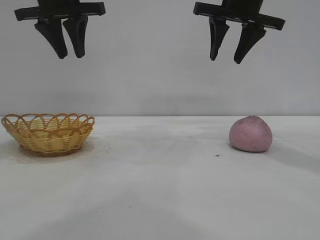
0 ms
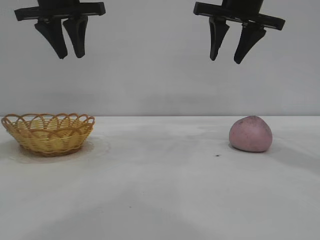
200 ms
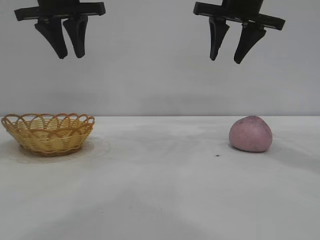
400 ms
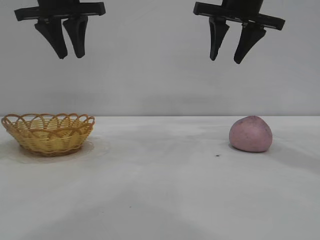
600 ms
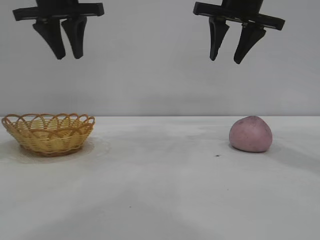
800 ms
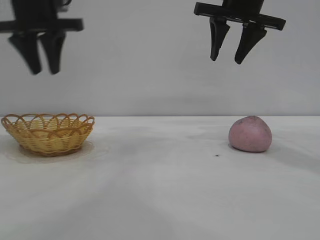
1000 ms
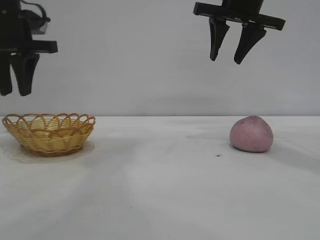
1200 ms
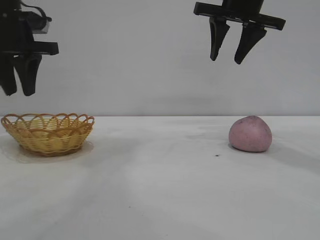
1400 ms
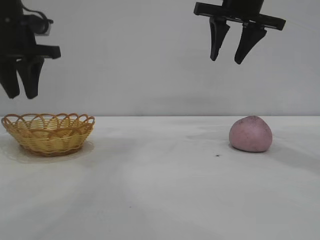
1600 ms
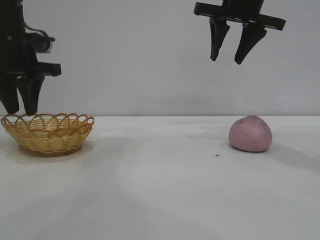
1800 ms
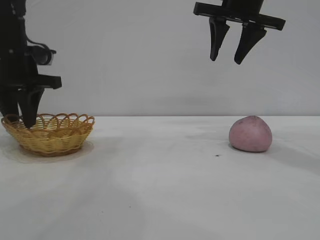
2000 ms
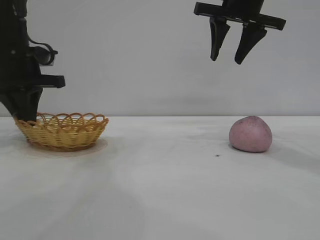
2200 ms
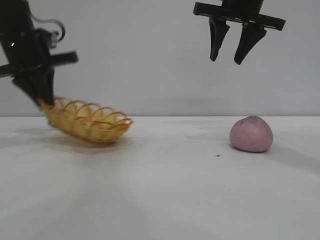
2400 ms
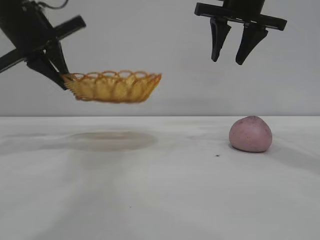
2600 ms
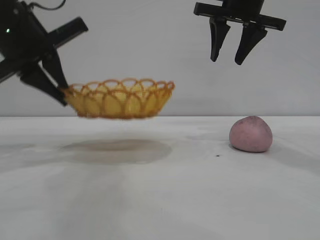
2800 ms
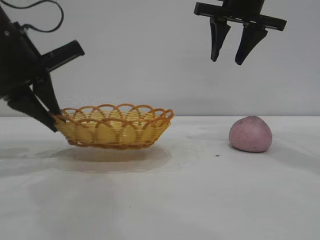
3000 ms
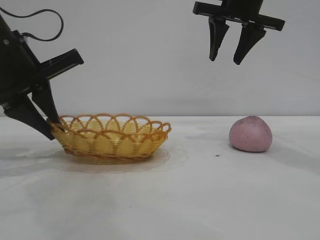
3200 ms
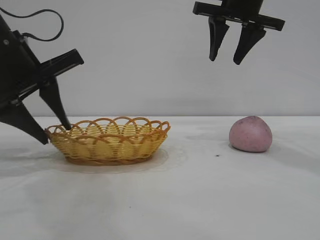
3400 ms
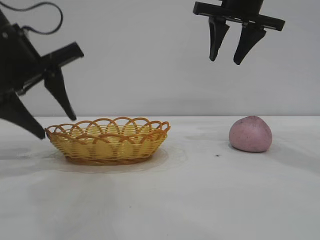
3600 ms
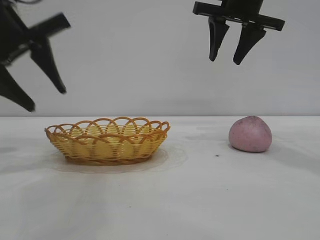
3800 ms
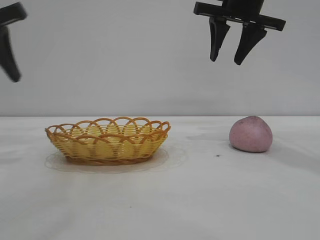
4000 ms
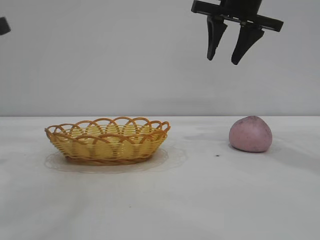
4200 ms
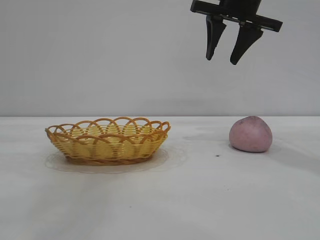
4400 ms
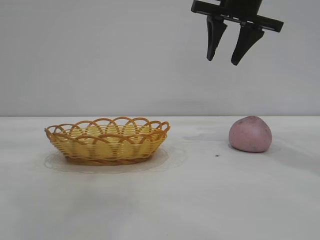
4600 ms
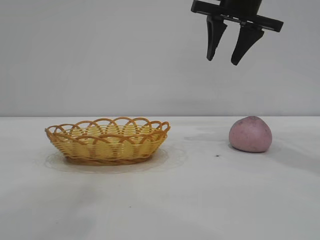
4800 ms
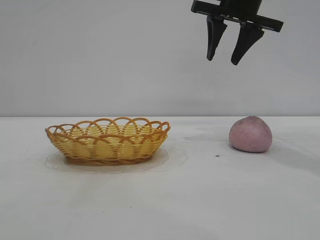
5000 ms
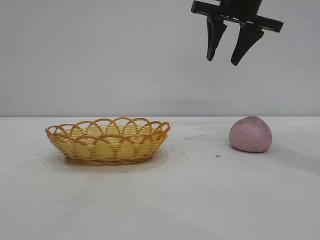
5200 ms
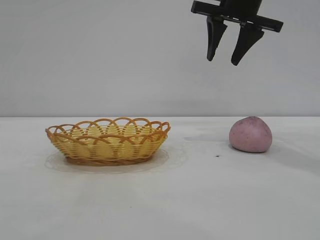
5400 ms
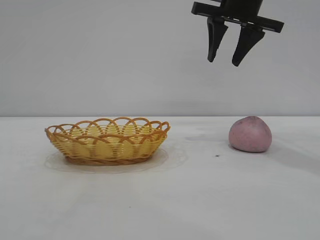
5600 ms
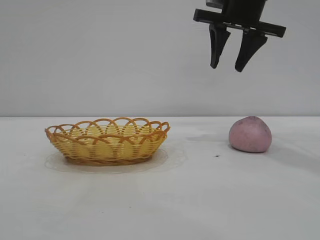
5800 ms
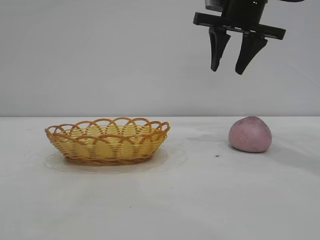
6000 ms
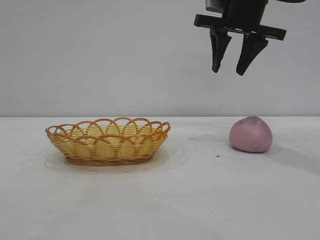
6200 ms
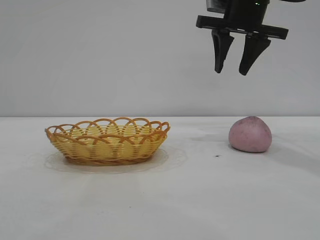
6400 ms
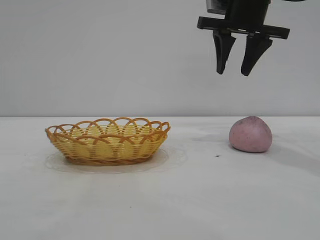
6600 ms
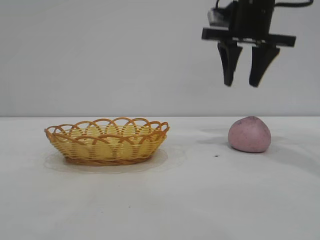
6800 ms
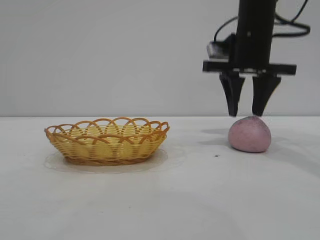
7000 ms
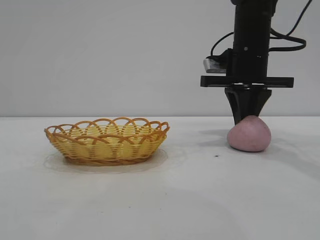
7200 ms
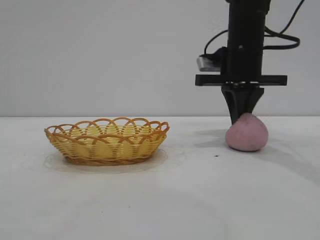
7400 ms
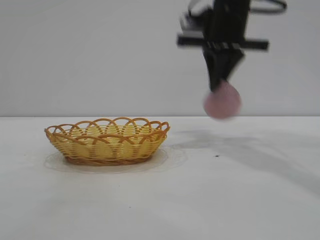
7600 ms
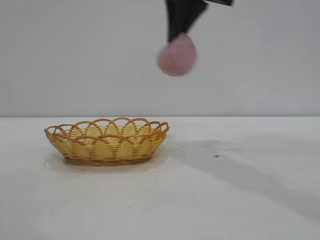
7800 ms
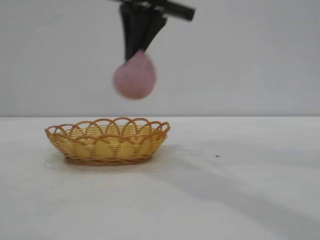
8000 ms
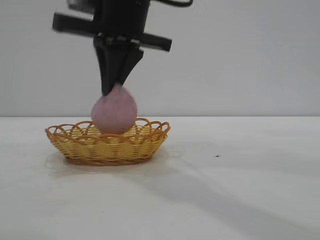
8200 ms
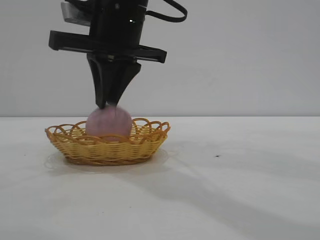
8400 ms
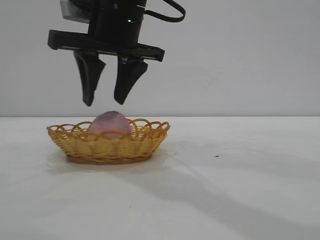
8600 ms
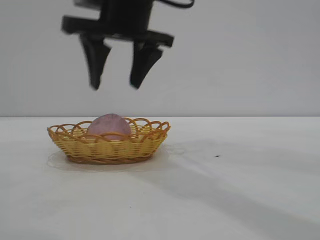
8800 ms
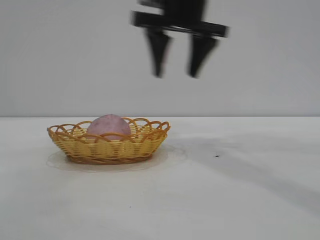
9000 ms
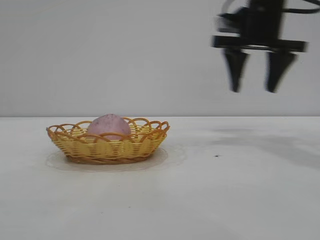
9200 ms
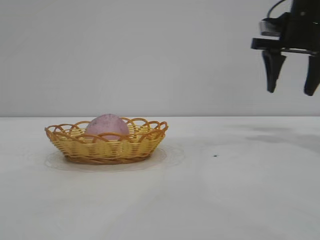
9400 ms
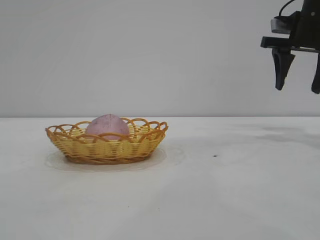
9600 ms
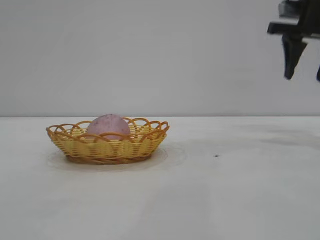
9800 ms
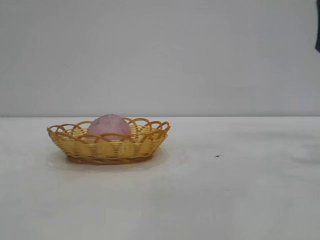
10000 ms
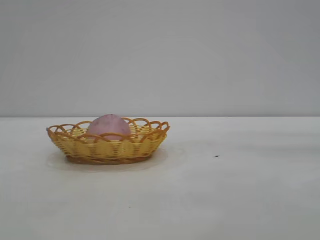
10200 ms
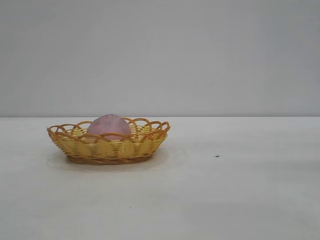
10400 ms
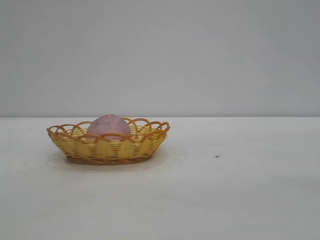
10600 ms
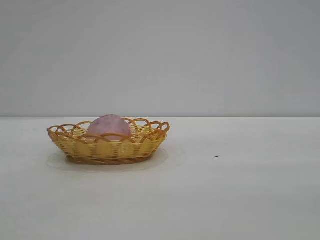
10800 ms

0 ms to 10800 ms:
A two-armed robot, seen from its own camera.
Task of the whole recording: pick up the peach and put it into the basket.
Step, 0 ms to 3800 ms: Move the basket to the center of view.
Step, 4000 ms to 7600 ms: Pick up the peach.
Step, 7800 ms to 9000 ms: place the peach into the basket.

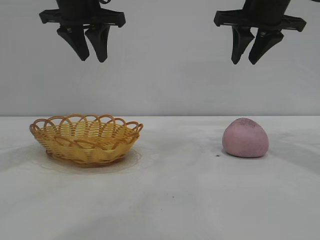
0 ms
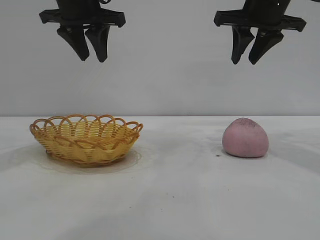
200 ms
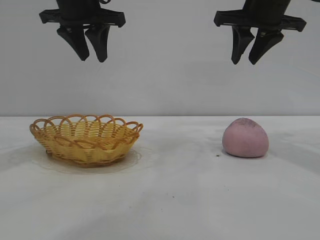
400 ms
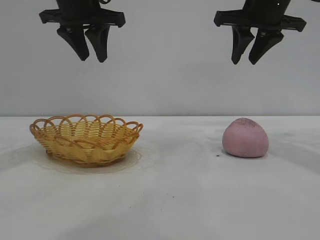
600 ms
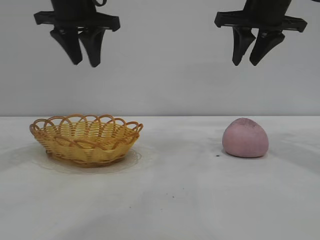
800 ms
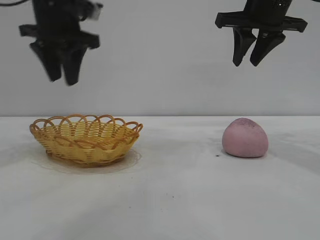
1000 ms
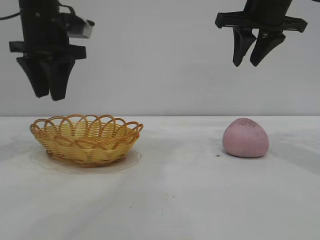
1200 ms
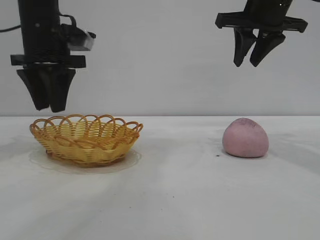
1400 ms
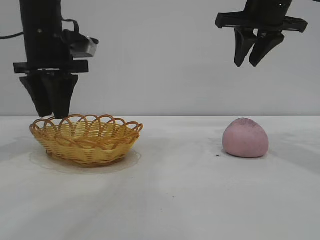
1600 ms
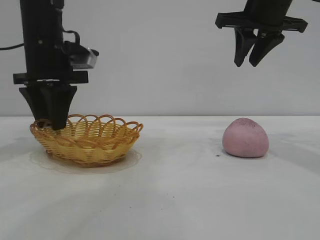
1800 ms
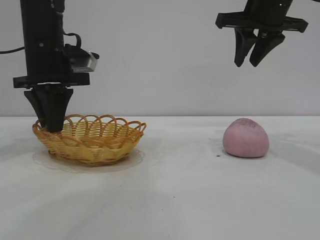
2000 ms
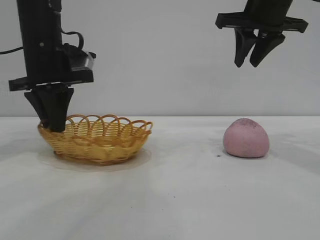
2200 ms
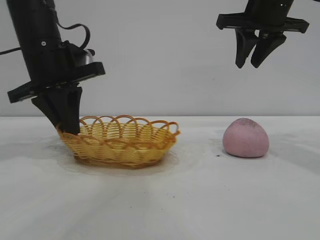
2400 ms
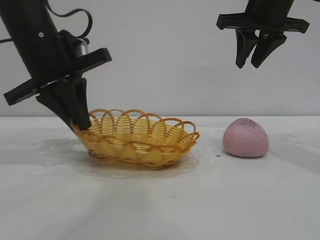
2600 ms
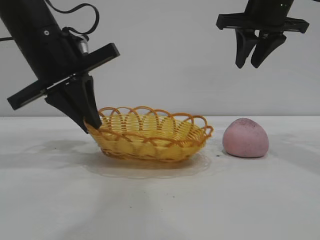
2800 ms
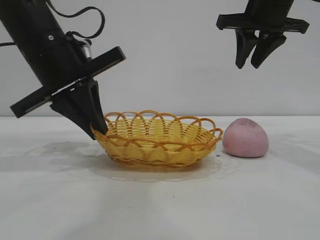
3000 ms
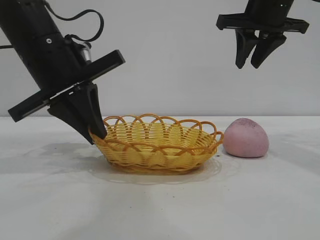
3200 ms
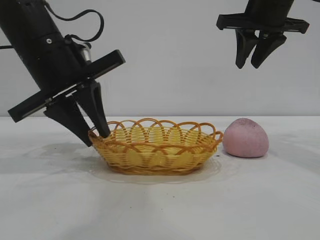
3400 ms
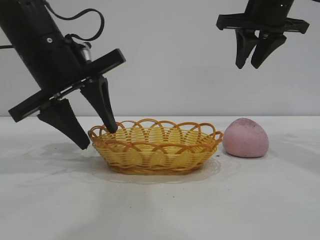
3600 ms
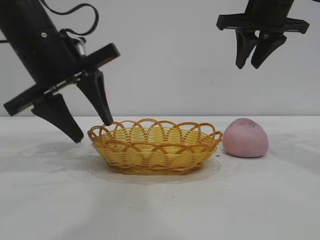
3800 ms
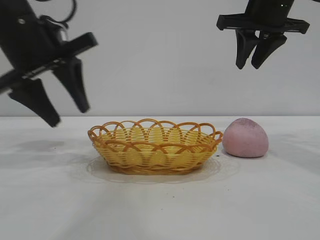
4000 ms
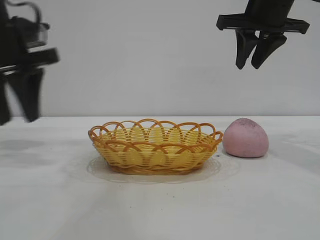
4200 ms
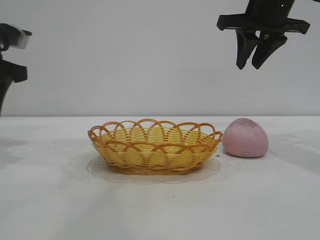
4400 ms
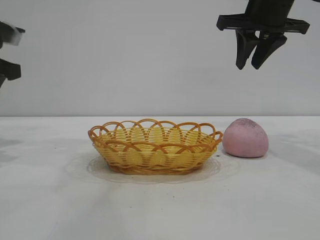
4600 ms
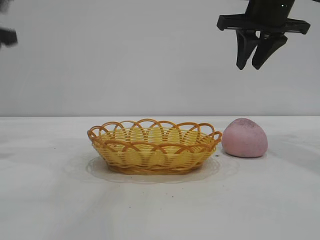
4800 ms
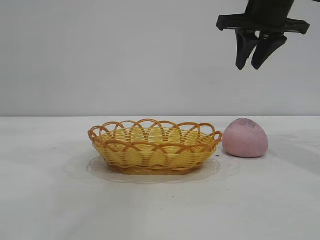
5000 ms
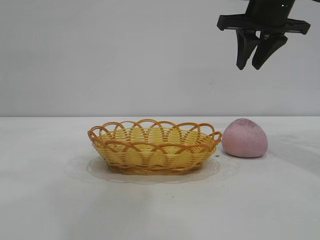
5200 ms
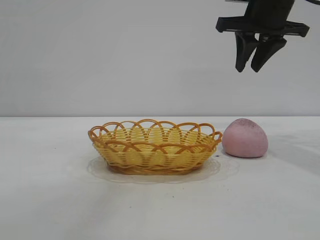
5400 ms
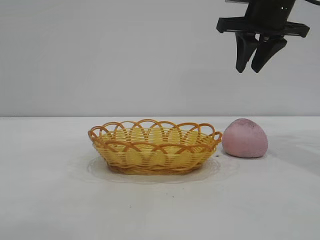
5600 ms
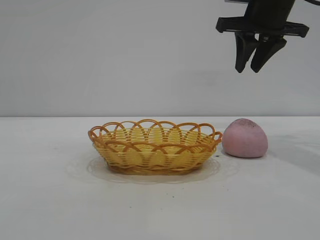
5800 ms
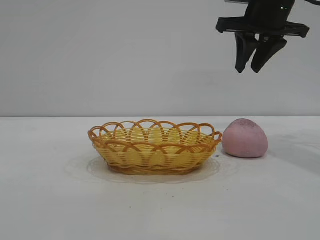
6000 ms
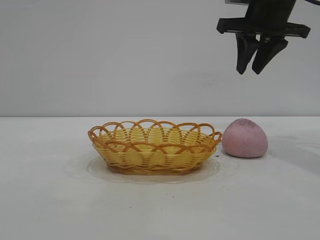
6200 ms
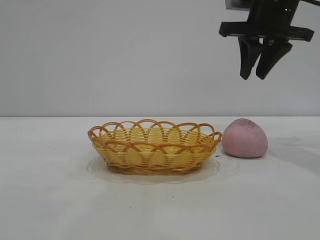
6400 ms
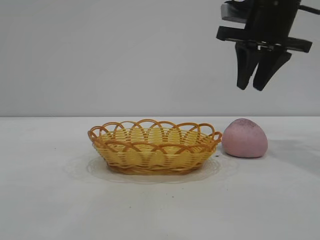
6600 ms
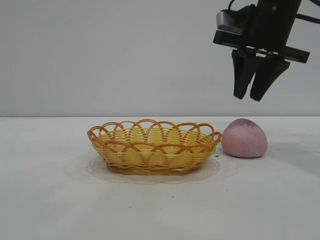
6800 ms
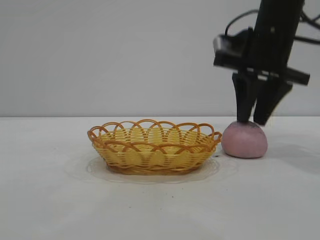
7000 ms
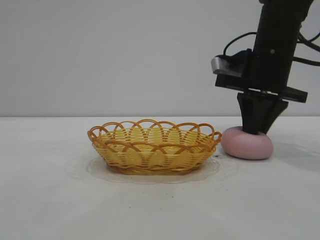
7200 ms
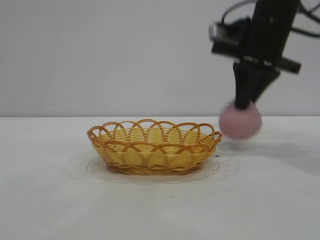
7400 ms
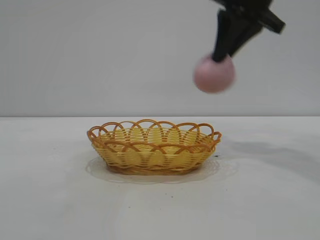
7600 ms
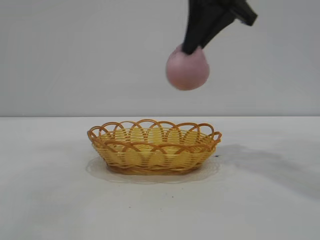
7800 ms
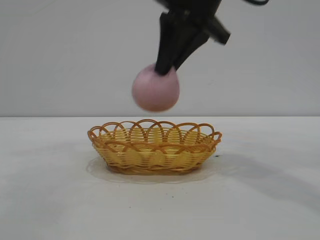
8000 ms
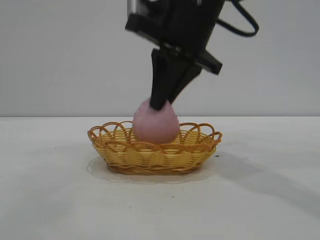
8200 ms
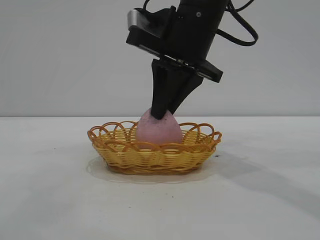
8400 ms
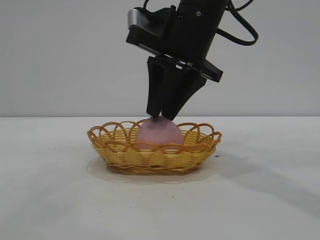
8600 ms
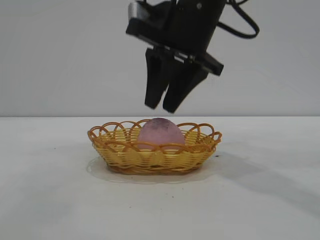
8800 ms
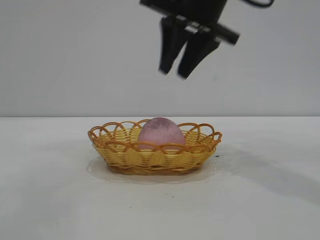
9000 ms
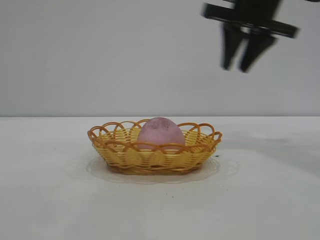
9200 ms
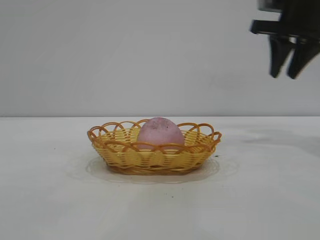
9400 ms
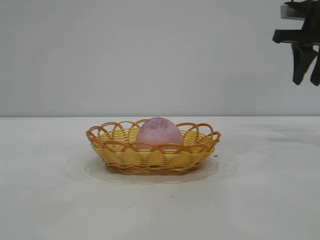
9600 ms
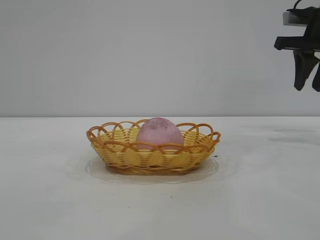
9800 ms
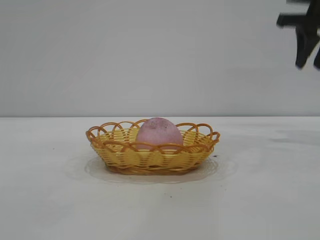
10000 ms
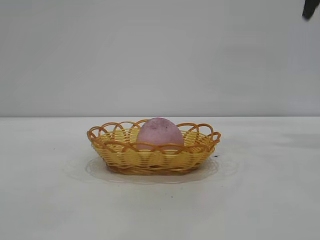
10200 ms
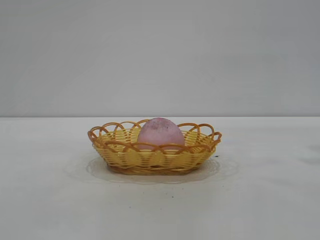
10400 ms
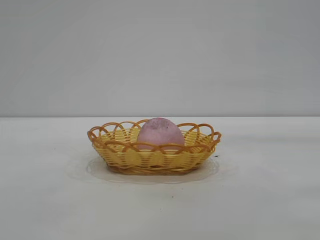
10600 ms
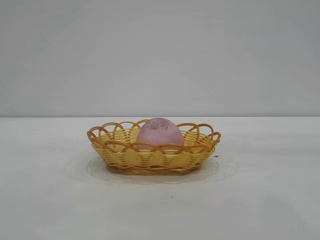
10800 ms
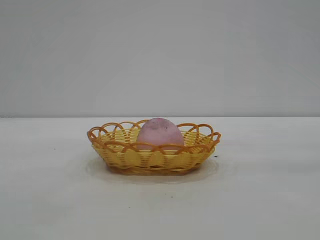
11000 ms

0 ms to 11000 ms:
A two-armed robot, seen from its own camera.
Task of the whole recording: pick up the peach and put it into the basket.
Step, 0 ms to 4000 ms: Move the basket to the center of view.
Step, 4200 ms to 7400 ms: Pick up the peach.
Step, 7600 ms to 9000 ms: place the peach into the basket.

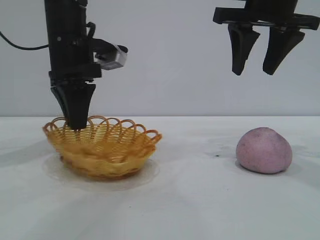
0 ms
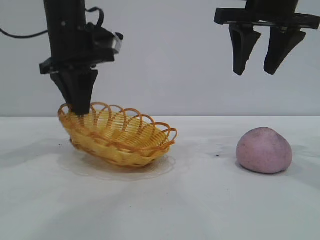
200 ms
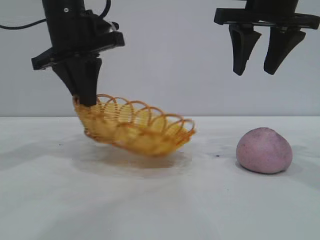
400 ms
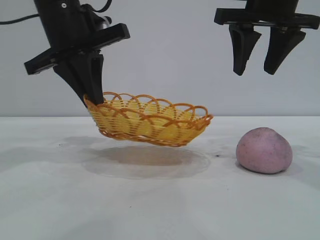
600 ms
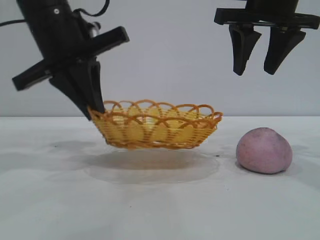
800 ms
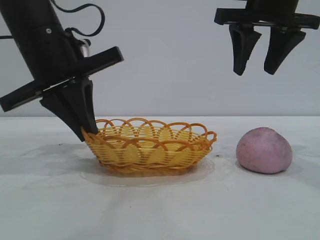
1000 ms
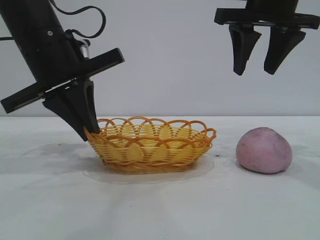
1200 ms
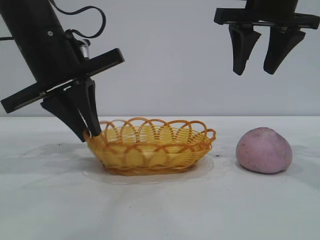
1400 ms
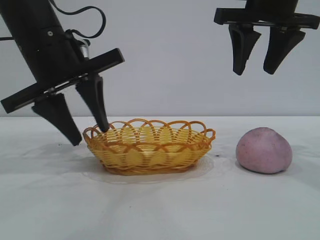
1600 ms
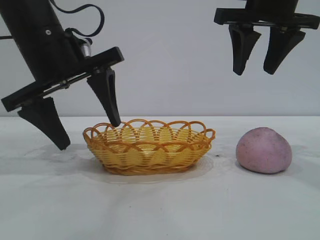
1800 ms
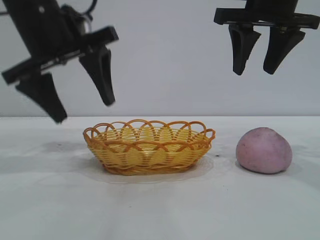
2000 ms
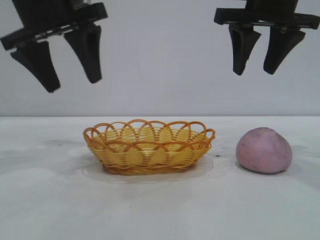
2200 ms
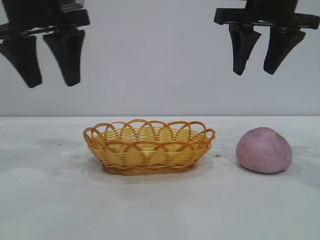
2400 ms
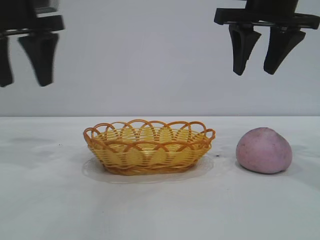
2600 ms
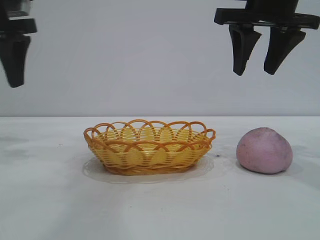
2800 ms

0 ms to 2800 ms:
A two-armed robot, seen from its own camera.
Task of the whole recording: pick up the peach and put it into the basket.
Step, 0 ms to 2000 ms: Move the basket to the center of view.
